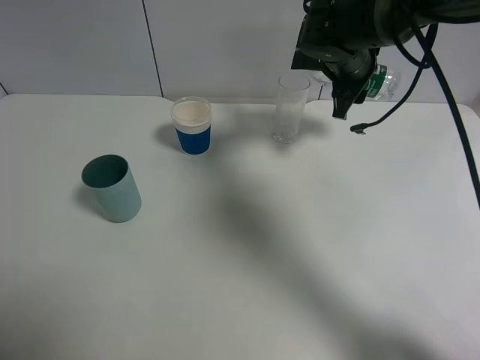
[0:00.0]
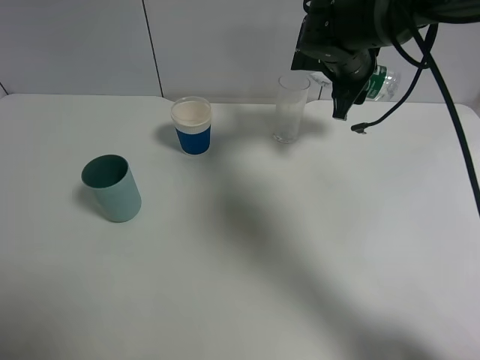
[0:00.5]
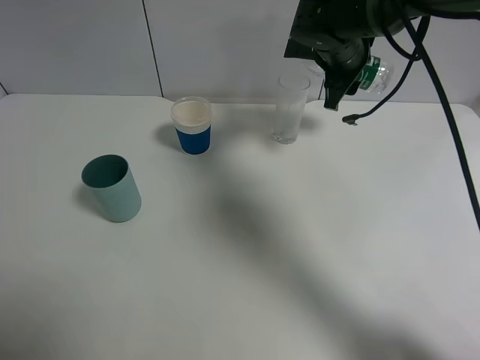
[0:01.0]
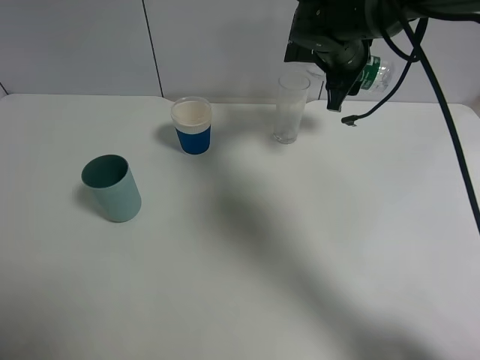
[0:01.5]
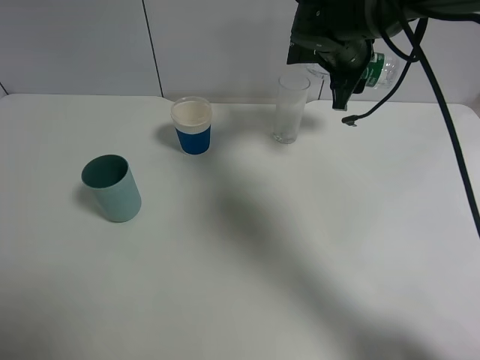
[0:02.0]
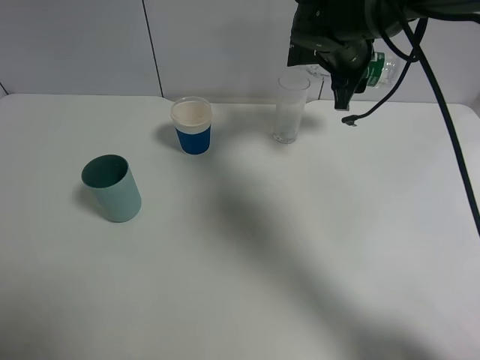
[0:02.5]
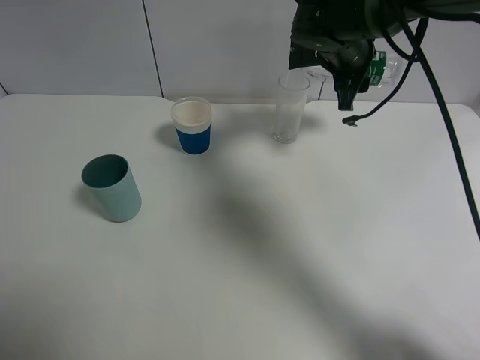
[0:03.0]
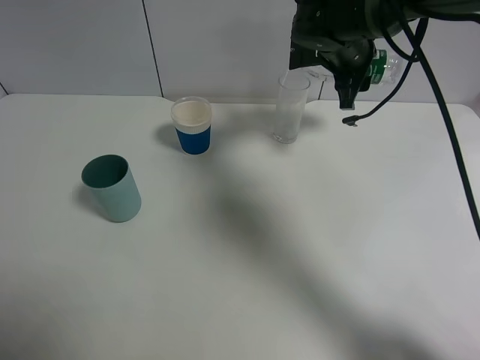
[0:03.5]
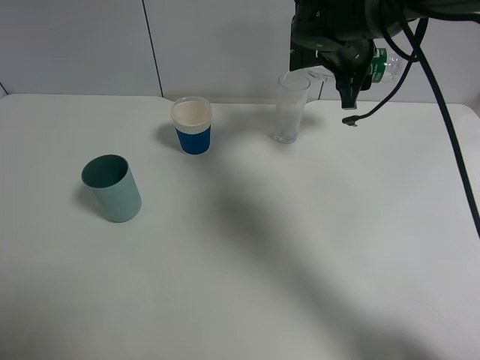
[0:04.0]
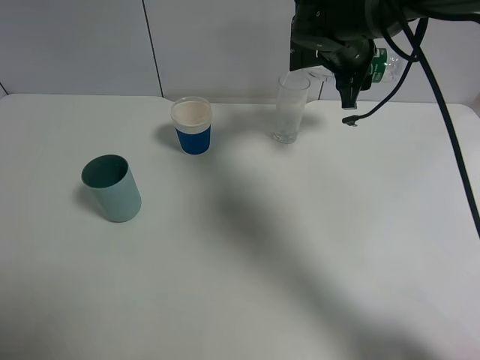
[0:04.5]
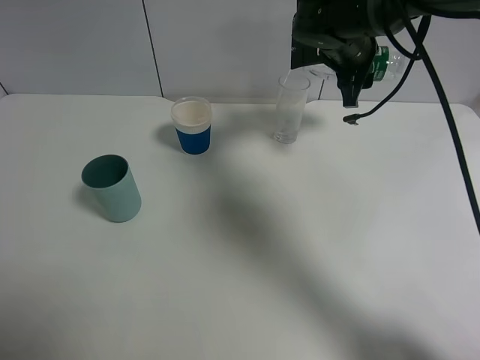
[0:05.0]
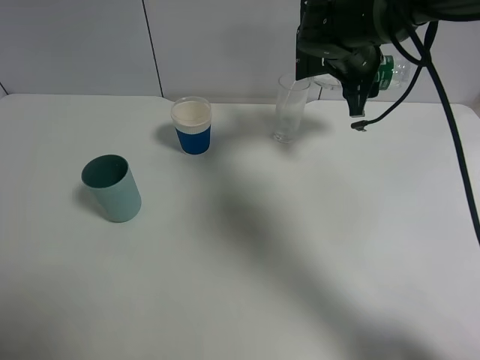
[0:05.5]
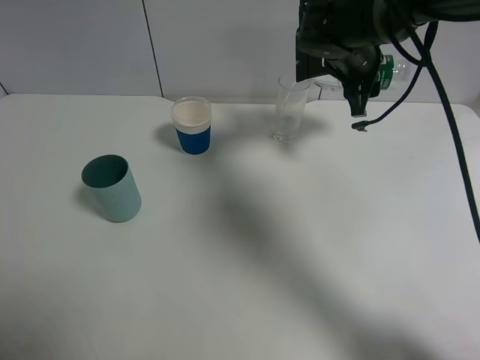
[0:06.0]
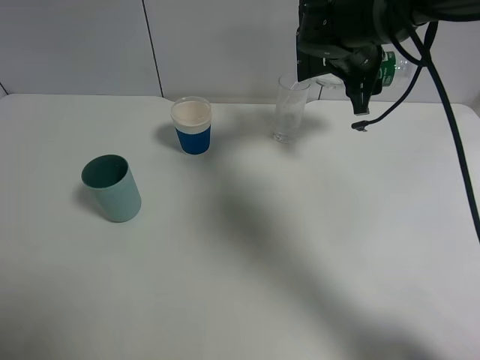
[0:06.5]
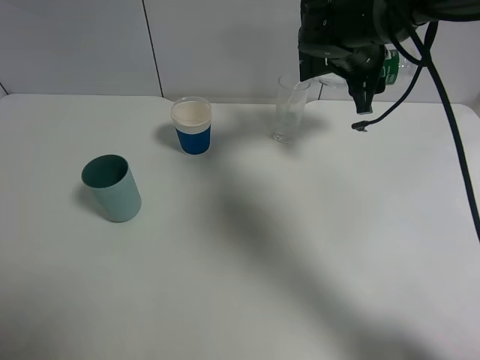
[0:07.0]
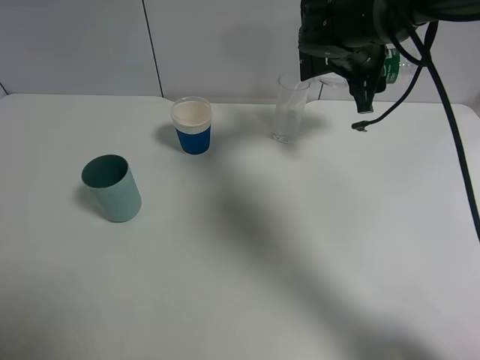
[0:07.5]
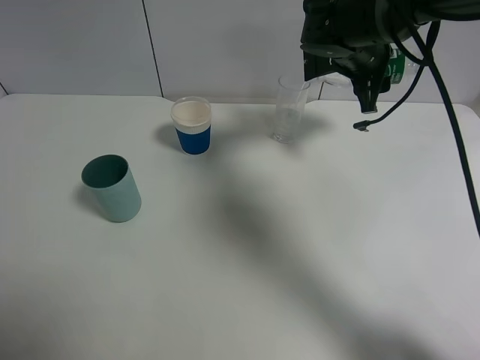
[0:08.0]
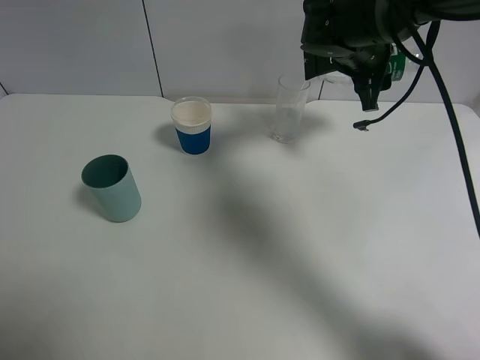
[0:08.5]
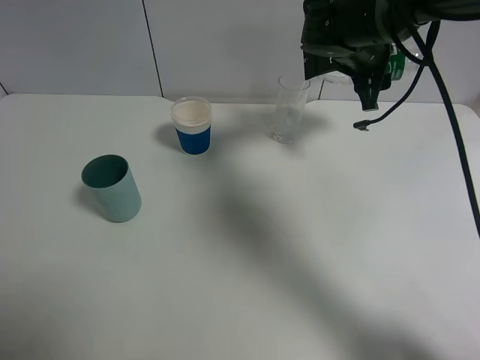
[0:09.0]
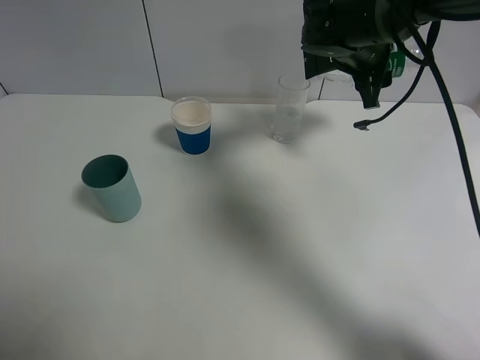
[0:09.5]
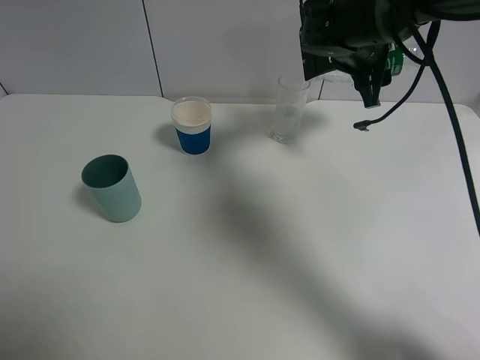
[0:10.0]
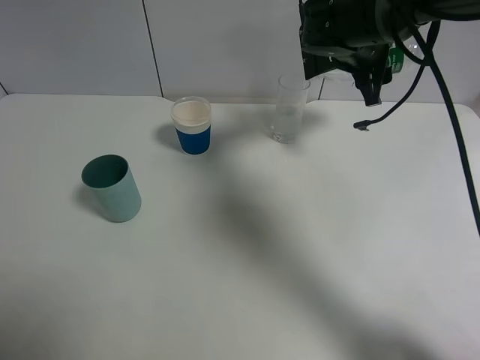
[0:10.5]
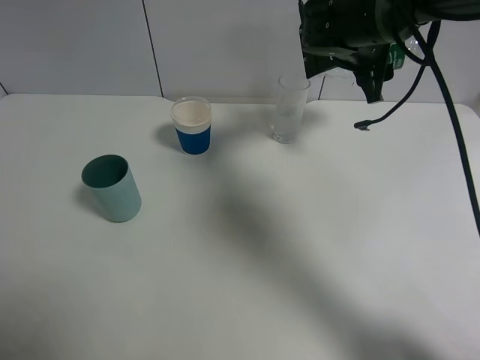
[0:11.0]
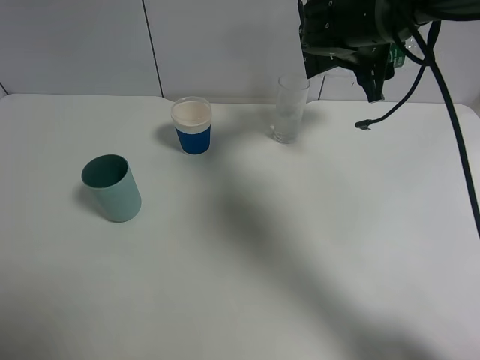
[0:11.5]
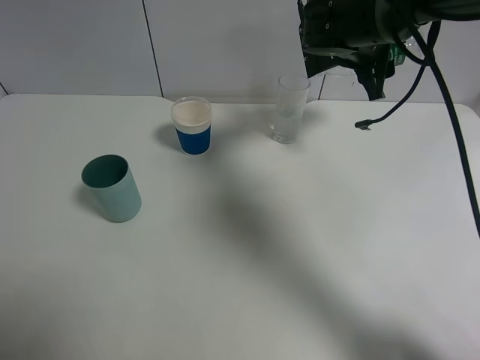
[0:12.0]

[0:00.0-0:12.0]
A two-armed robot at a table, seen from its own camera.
Task of the whole recording: use a gripper to hold the bottle of the drink and pour it into a random cup.
0.0 to 4.0 s: The grippers move only a little.
4.0 to 6.0 s: Neither gripper changes place.
6.0 to 8.0 s: Both grippers stay about where they are.
8.0 to 10.0 s: The grippers make only small movements.
10.0 to 12.0 s: Both grippers stay put.

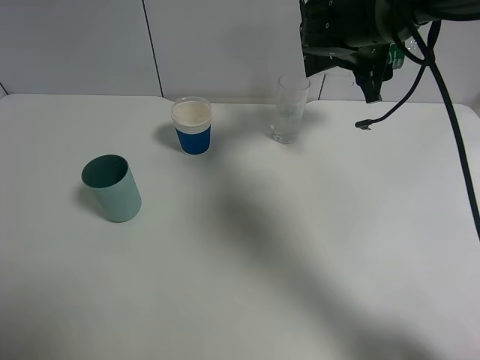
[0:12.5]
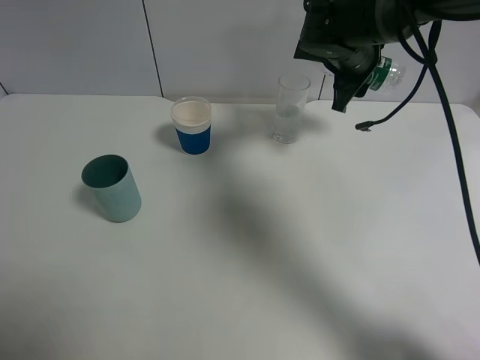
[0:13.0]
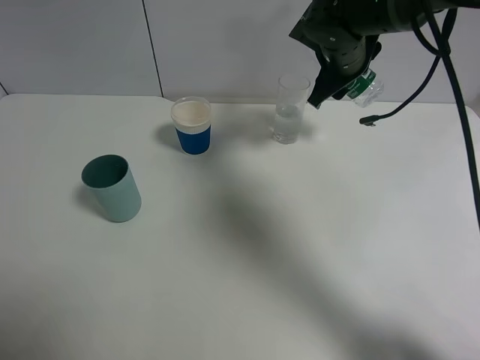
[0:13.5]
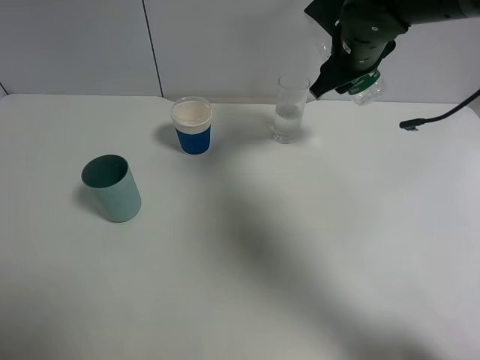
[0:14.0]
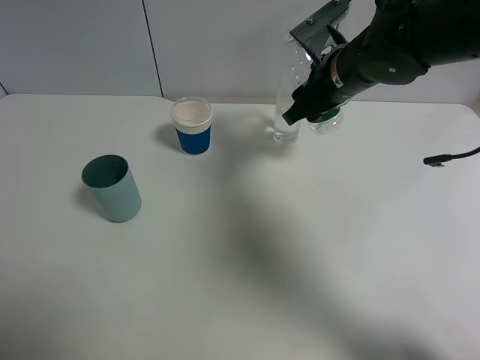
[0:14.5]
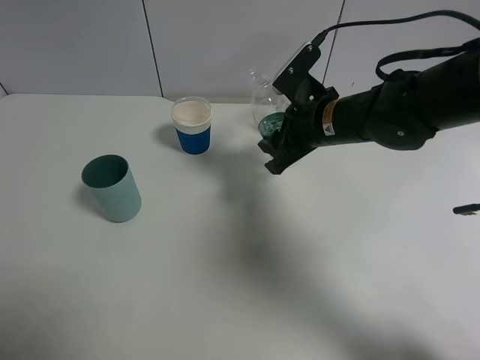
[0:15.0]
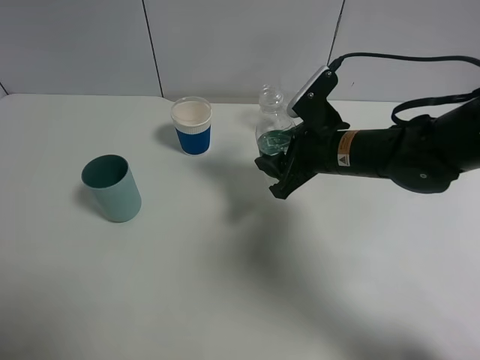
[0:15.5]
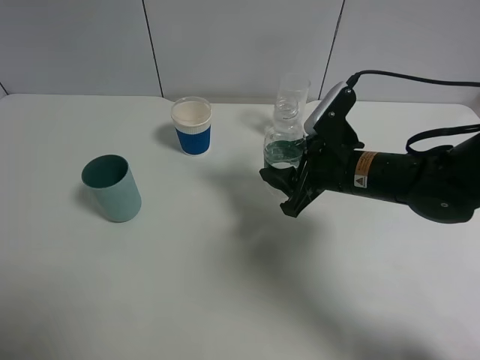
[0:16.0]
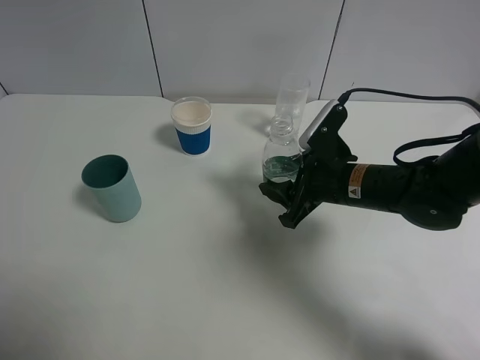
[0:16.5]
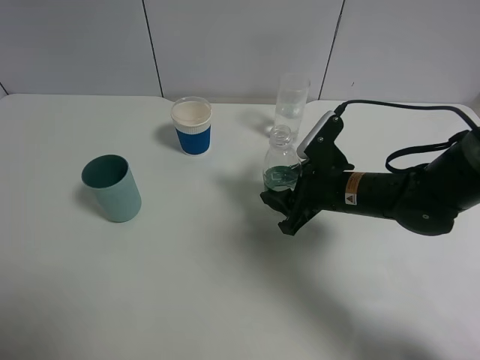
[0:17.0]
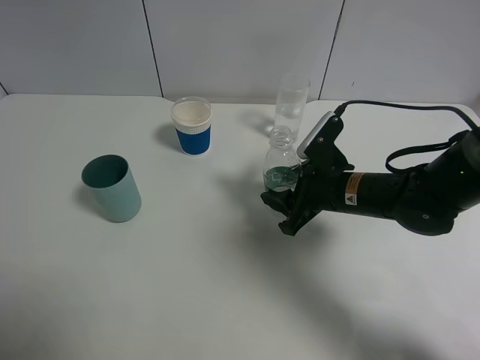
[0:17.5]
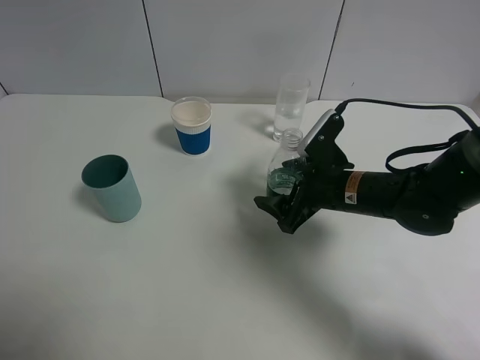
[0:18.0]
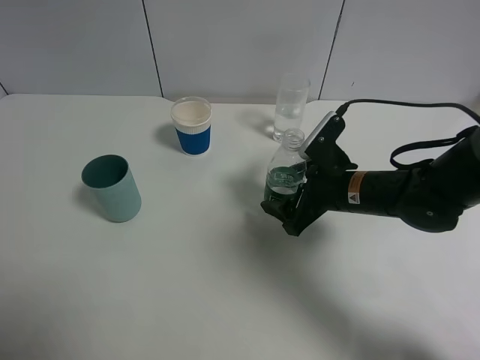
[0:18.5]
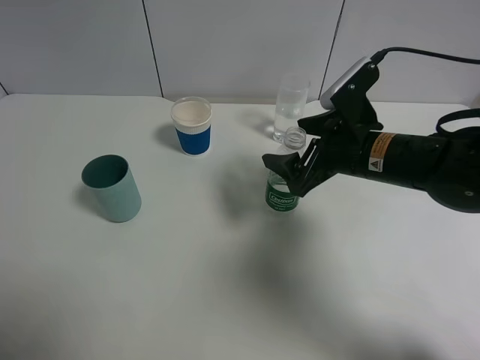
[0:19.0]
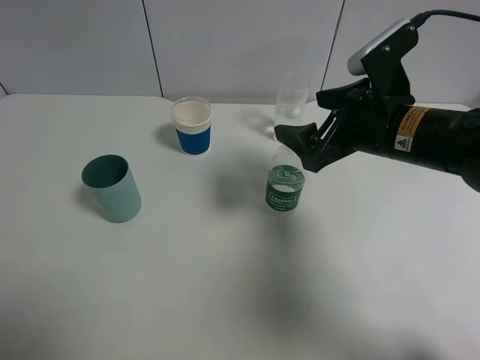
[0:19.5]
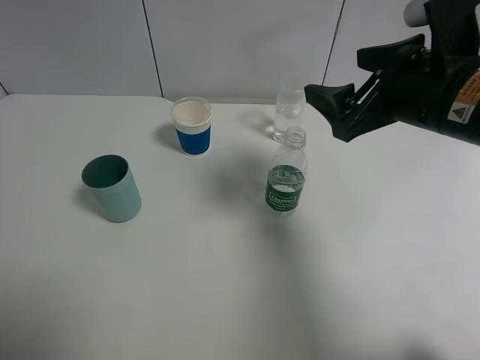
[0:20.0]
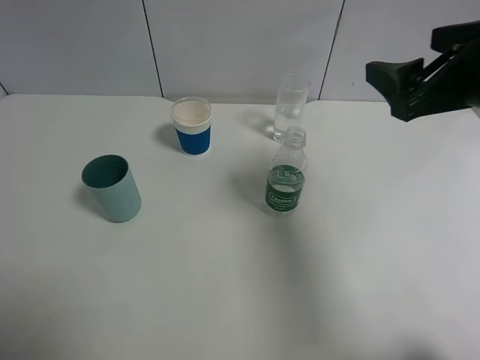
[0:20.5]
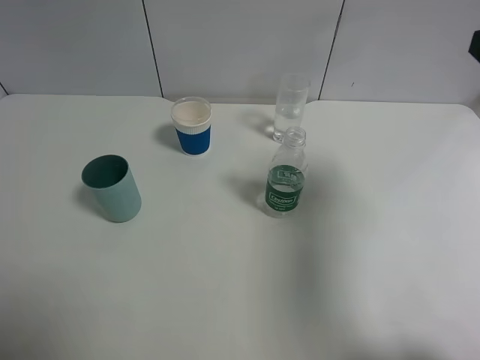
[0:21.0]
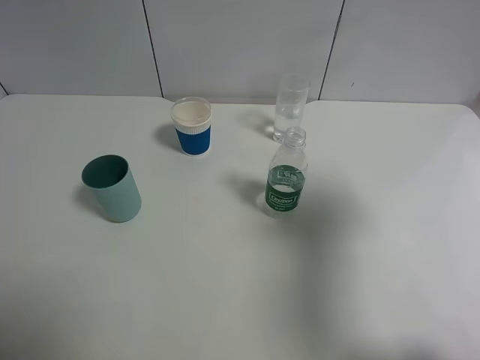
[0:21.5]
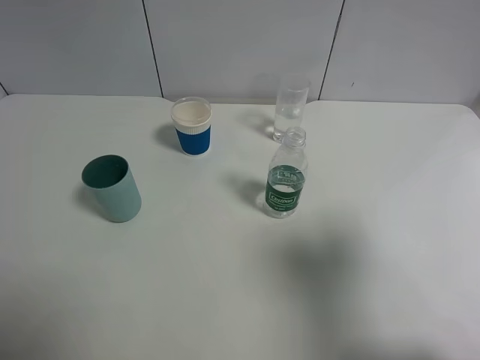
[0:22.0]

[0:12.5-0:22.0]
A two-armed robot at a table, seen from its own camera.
Task of the whole recording: use a gripper to hold the bottle of the drink and pour it into a random cup.
Step, 13.5 to 19.0 s: Place the mineral water bottle on the table with the right gripper.
12.5 to 14.5 s: The right gripper is displaced backward by some 5 cm.
14.5 to 16.5 s: The right gripper travels downward and backward by some 15 cm.
16.5 to 18.0 s: The right gripper opens its fingers.
18.0 to 20.0 s: The right gripper is displaced upward by some 15 cm.
20.0 to 22.0 s: The right gripper is displaced backward and to the right by approximately 20 cm.

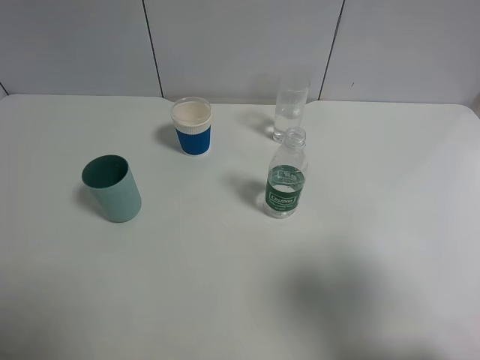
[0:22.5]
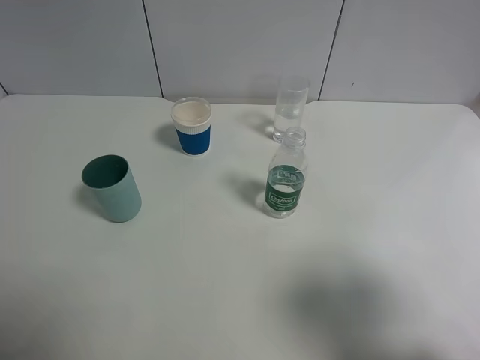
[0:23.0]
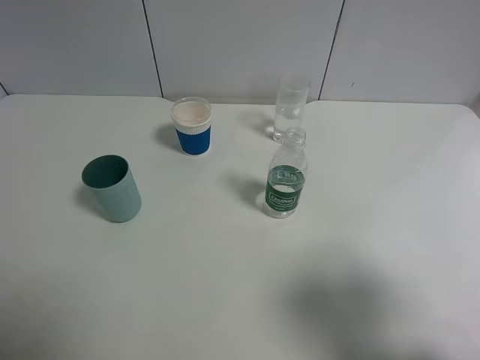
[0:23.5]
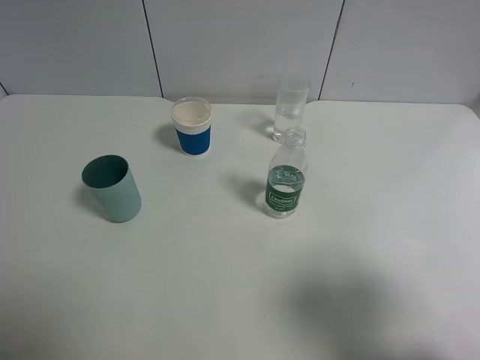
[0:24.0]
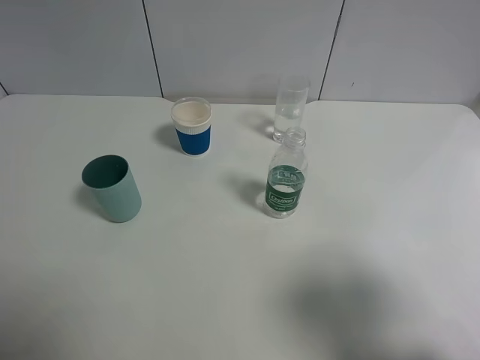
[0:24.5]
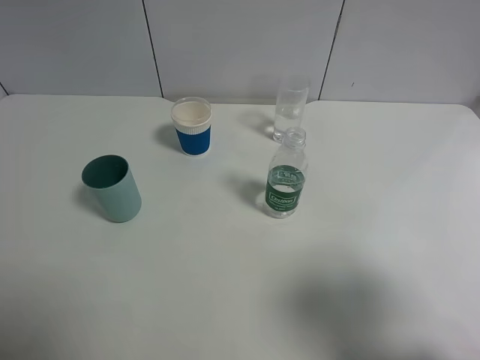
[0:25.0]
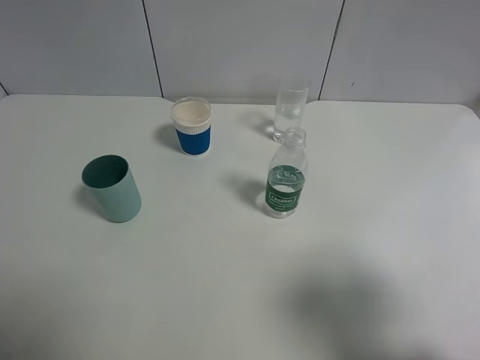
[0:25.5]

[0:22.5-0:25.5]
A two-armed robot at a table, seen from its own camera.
Task of the whole recording: use a gripper to hold the bottle of the drink and pour it into a random cup.
24.0 to 25.5 s: The two grippers keep their place.

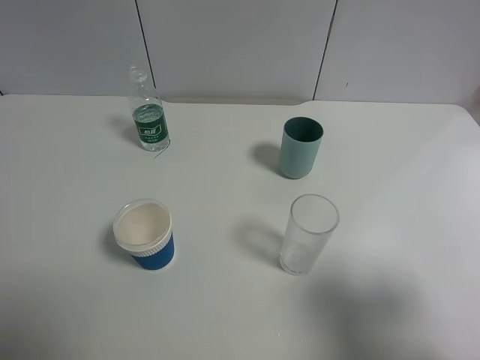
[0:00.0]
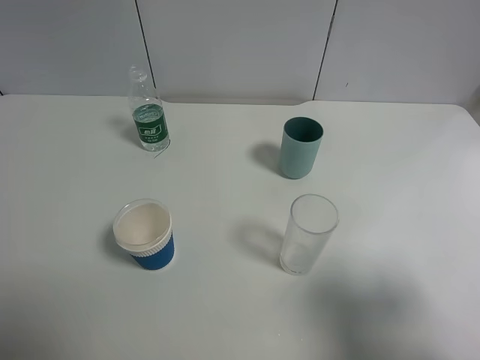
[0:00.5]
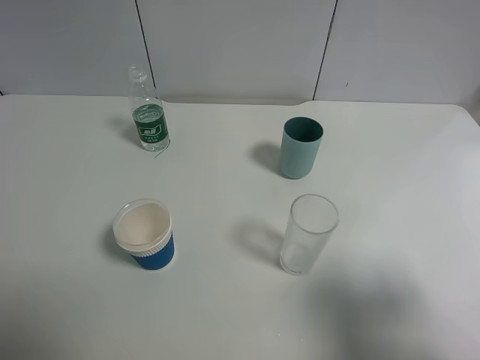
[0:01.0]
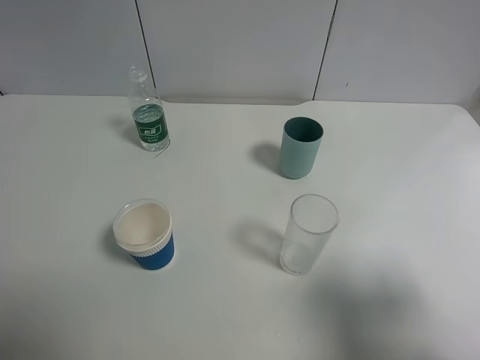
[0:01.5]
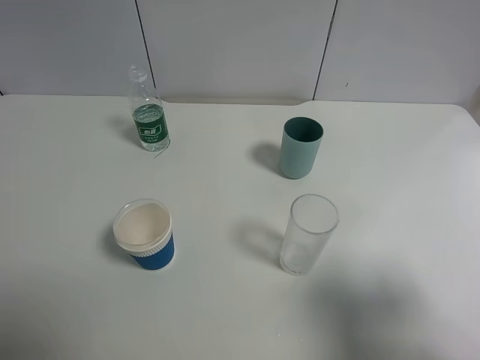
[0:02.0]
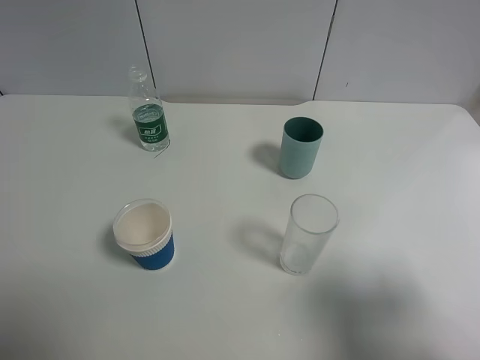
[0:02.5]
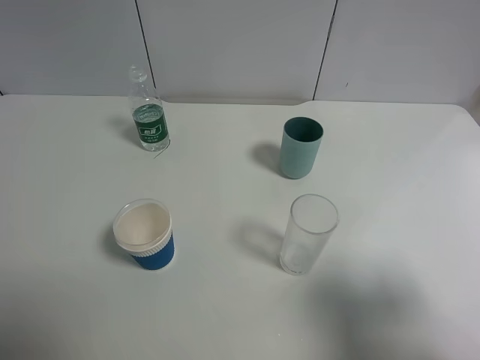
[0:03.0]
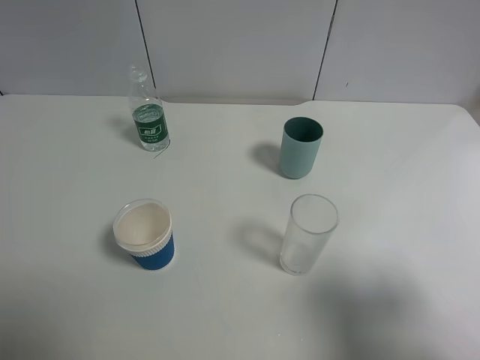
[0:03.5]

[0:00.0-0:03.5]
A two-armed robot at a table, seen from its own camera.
Task of the whole recording: use a gripper to hold the bottle of the drink and pour it into a random cup.
0.0 to 2.0 s: Both grippers stay about where they are.
